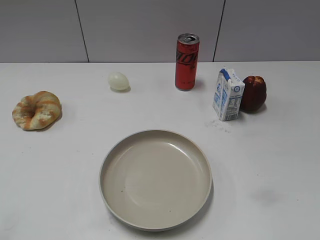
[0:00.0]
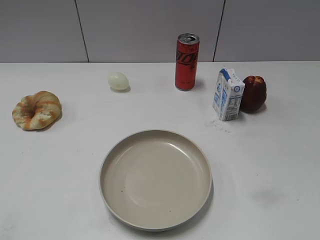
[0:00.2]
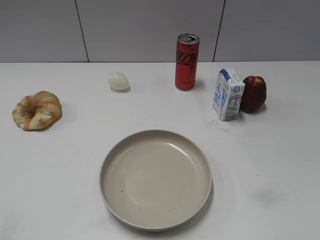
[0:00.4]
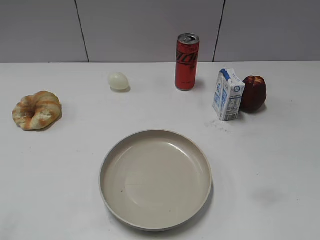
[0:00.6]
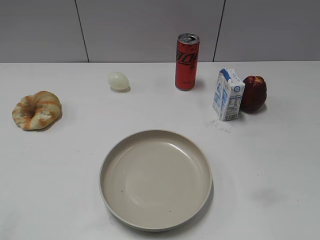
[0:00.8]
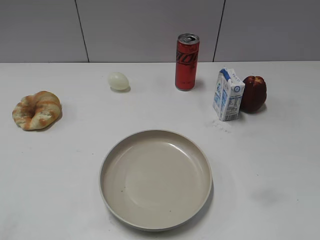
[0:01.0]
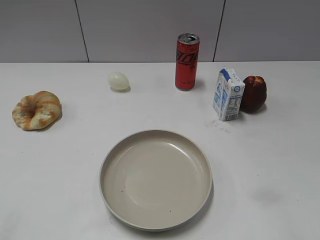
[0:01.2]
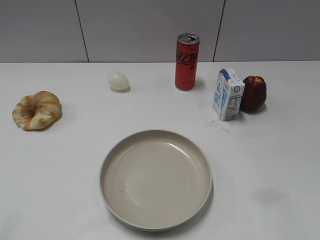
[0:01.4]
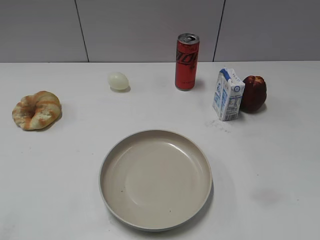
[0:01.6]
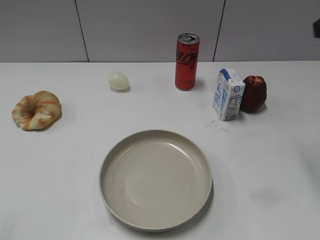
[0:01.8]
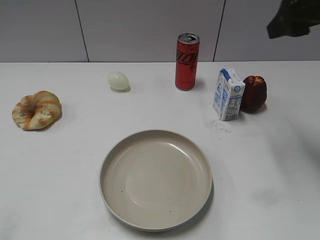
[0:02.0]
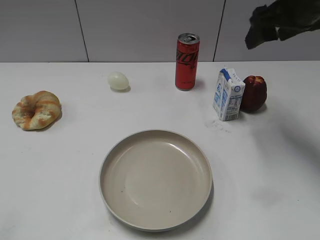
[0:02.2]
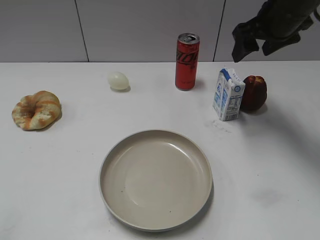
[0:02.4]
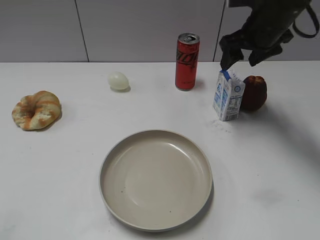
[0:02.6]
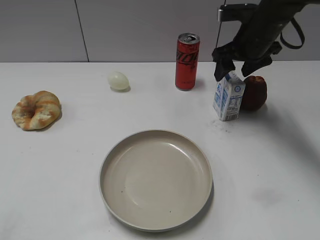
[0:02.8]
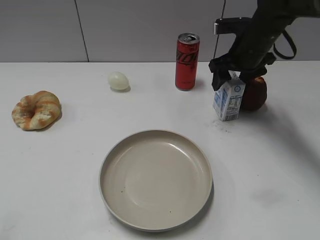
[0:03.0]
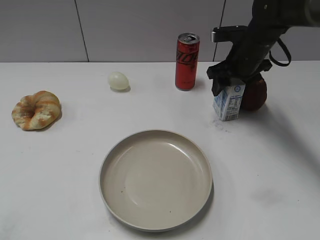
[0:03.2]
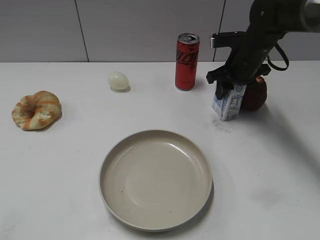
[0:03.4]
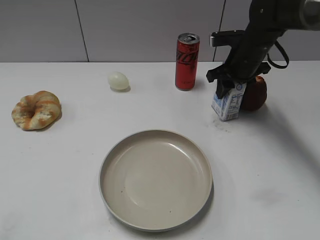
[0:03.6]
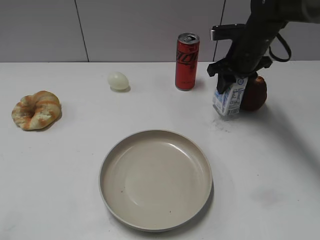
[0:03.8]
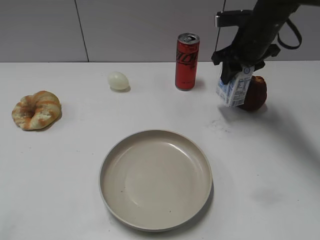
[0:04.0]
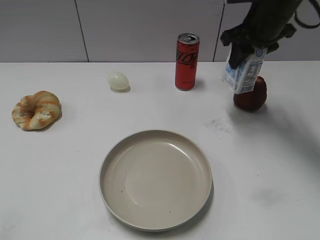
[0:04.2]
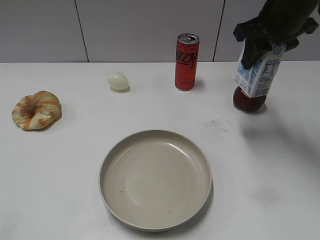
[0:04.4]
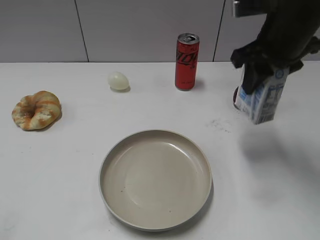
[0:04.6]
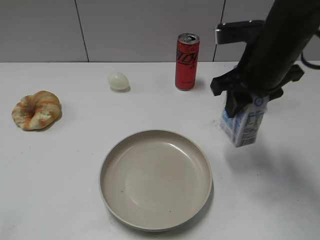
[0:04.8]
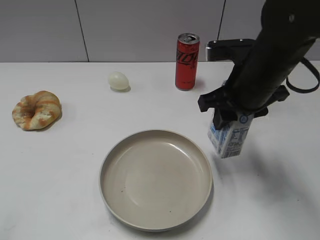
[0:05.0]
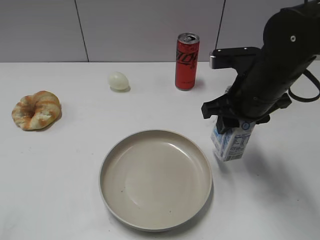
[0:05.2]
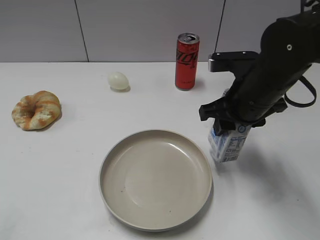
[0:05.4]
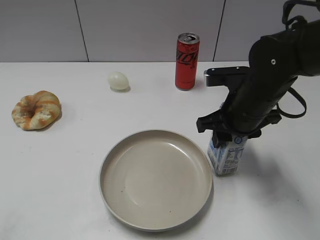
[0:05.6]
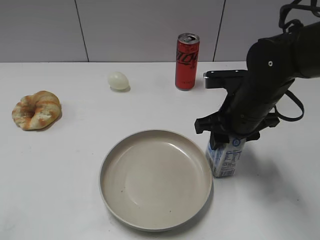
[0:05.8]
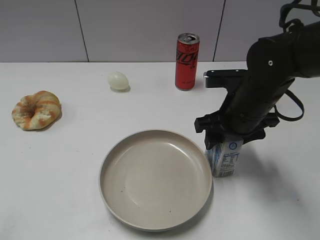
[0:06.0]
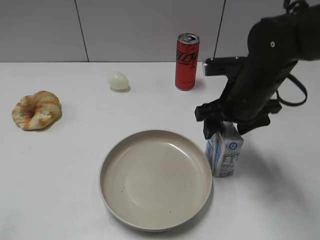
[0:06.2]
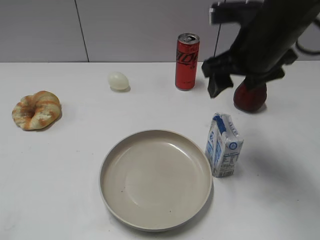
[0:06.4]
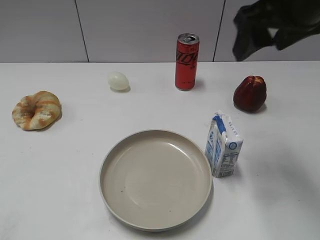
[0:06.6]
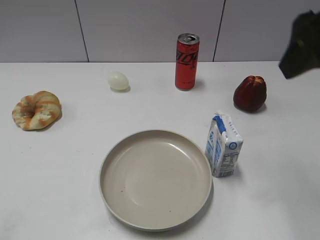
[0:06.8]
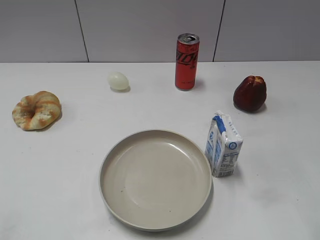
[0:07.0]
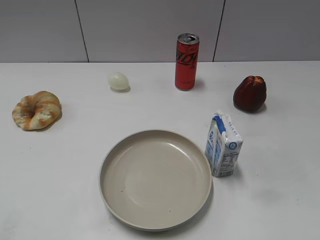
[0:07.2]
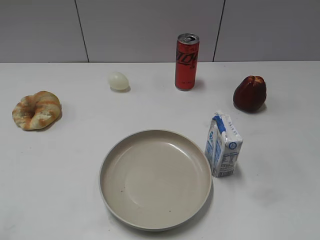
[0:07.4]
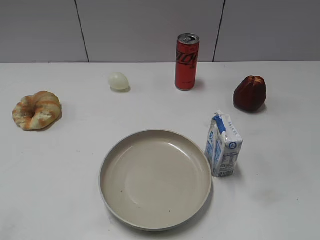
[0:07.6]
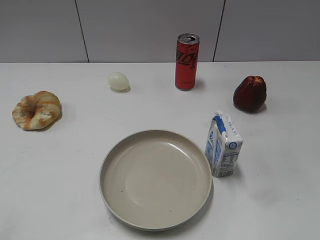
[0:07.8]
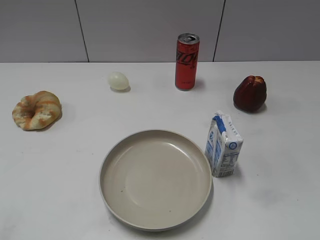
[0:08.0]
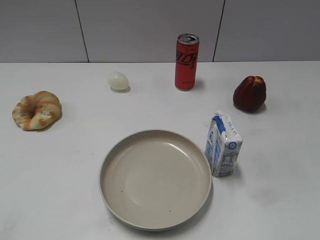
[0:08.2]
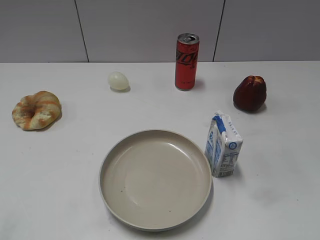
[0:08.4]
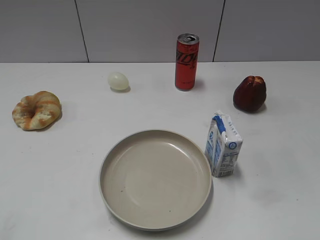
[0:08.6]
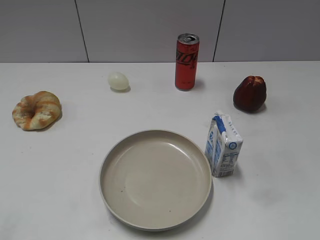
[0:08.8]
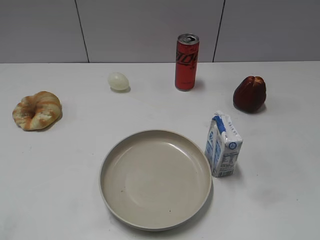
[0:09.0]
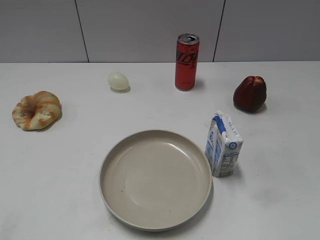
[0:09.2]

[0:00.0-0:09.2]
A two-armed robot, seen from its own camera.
Step, 0:00.8 to 0:03.4: Grasp the milk with right gripper.
Step, 0:03.6 to 0:06.2: Place the milk on the table with right gripper.
0:01.6 to 0:03.0: The right gripper is displaced forward, downward and to the left by some 30 cm.
0:03.0 to 0:04.6: The right gripper heads backward and upward, covering roughly 15 cm, and closes up.
0:04.6 to 0:06.2: The right gripper moves downward, about 10 cm, and opens up.
0:06.2 to 0:07.6: The right gripper shifts roughly 30 cm backward and to the right.

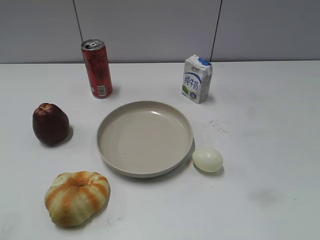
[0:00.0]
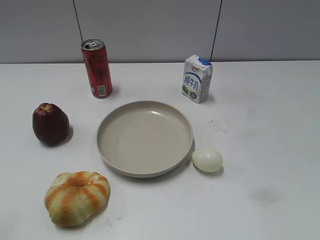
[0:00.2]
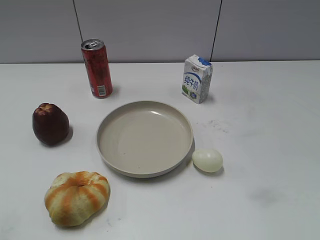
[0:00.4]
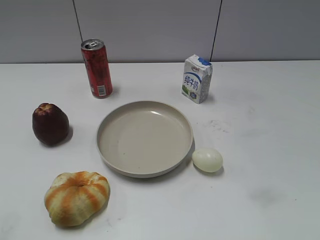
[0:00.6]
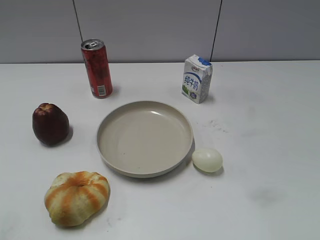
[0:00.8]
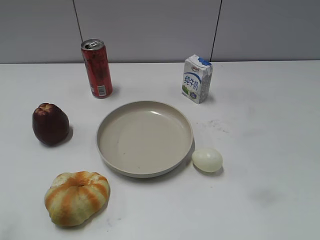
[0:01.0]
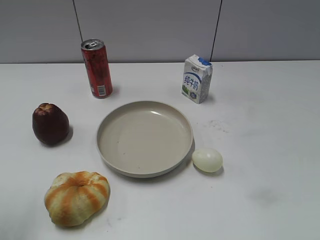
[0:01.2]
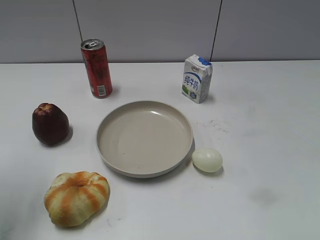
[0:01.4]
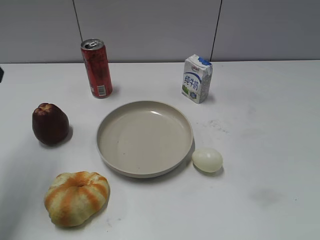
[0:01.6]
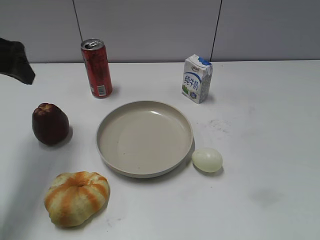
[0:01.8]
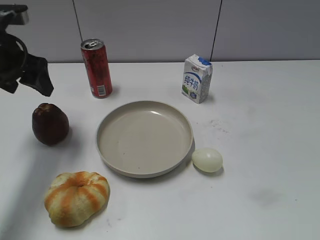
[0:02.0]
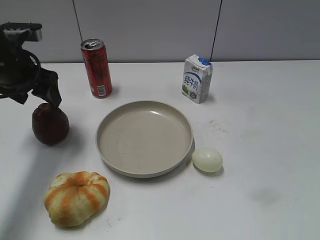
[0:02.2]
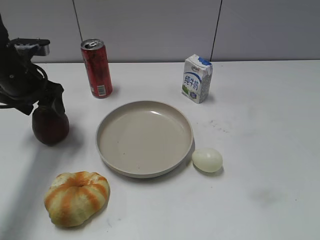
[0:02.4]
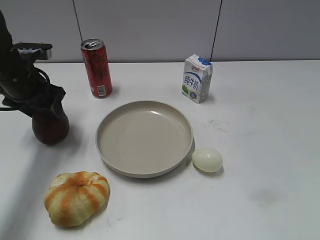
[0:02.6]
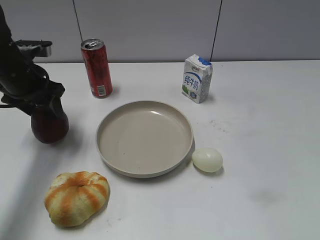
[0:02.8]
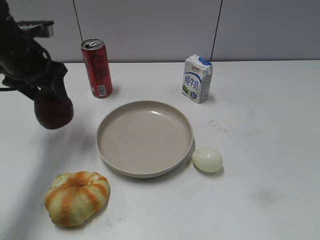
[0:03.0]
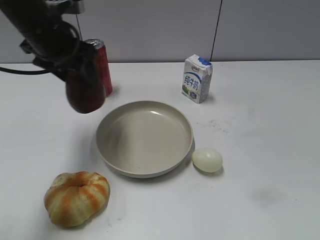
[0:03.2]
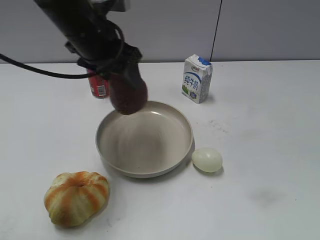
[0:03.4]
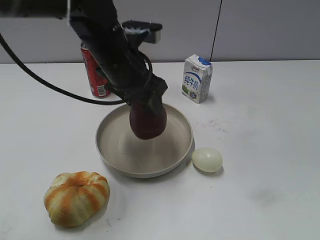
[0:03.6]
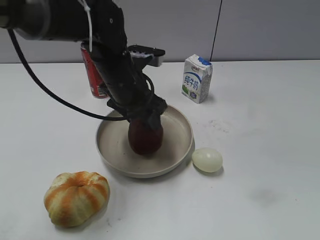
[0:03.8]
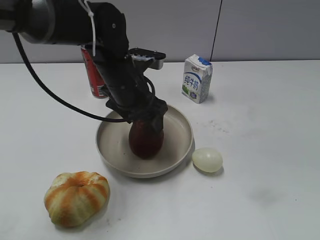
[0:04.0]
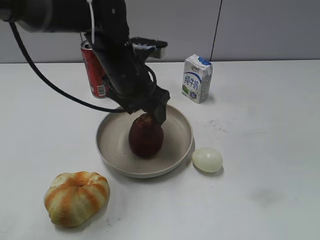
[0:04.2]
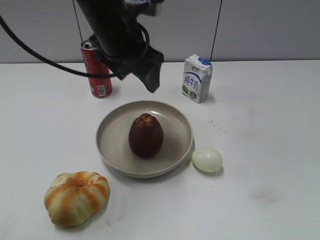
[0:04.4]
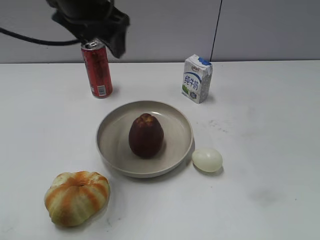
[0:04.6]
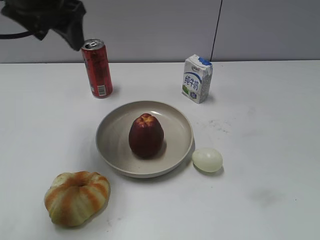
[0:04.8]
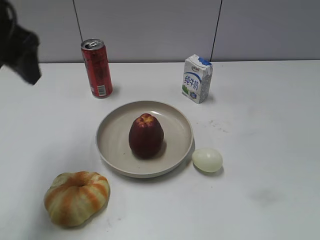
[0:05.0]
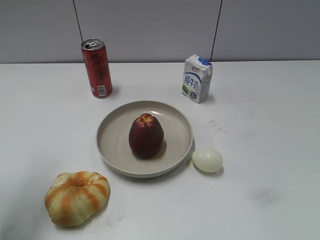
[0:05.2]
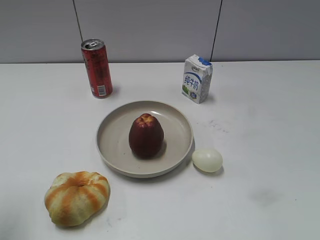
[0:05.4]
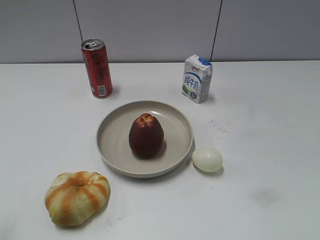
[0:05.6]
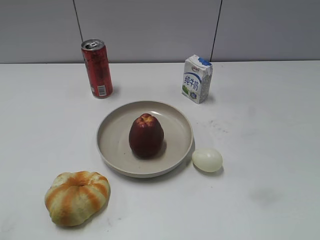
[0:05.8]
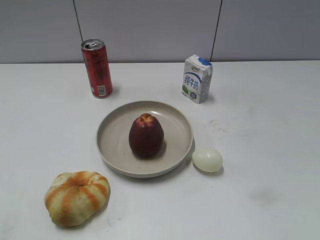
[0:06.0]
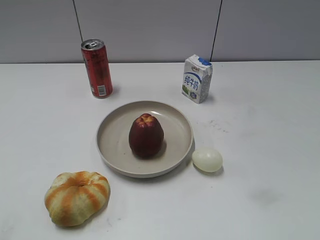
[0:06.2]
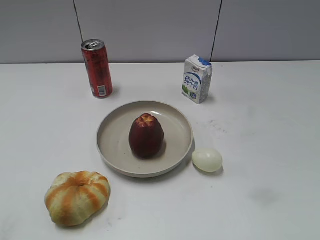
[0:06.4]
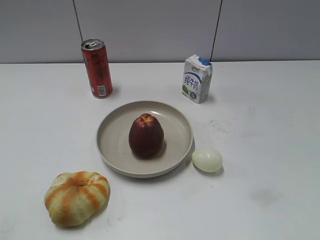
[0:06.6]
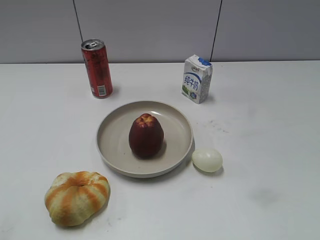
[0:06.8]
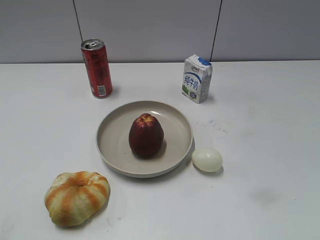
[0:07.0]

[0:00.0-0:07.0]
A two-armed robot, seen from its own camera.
Step, 0:00.8 to 0:02.6: Grasp the apple with left gripper.
Step, 0:02.8 to 0:04.2: Place the apple on the plate with left gripper.
0:01.4 to 0:02.8: The left gripper moves forward and downward, about 20 cm, and closes.
0:02.8 to 0:04.2: The left gripper is displaced to the right by some 20 cm, and opens up.
0:04.2 to 0:05.6: The left gripper is displaced to the left and backward by about 35 cm, and closes its fingers.

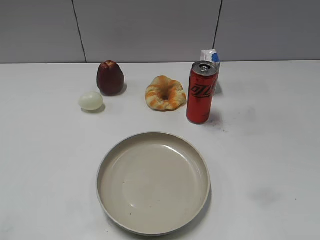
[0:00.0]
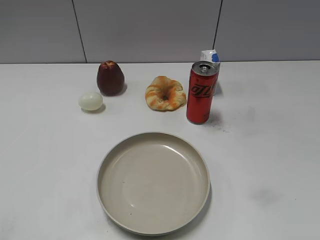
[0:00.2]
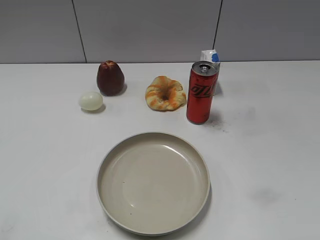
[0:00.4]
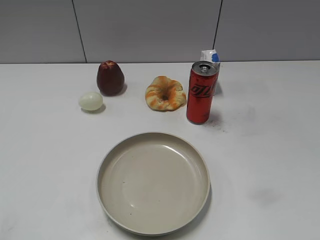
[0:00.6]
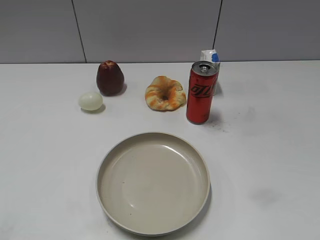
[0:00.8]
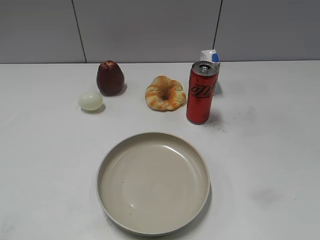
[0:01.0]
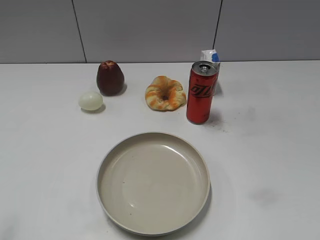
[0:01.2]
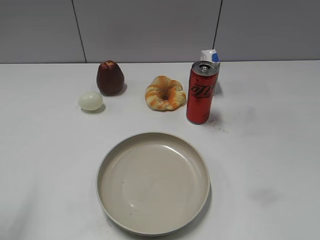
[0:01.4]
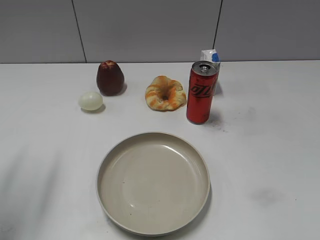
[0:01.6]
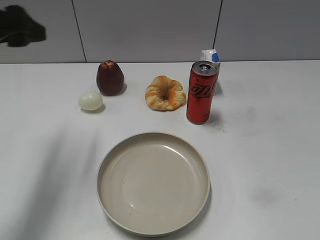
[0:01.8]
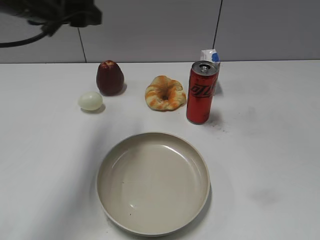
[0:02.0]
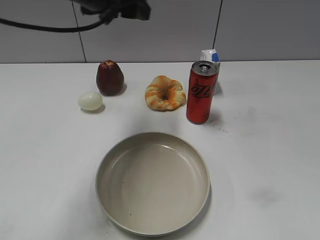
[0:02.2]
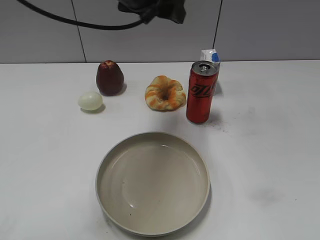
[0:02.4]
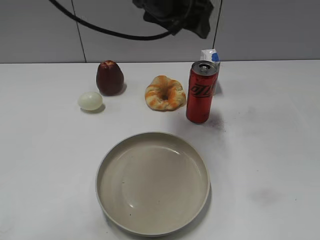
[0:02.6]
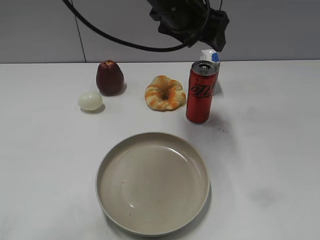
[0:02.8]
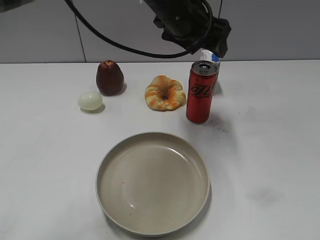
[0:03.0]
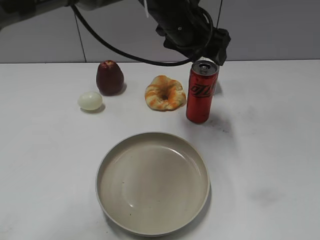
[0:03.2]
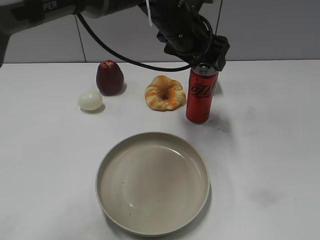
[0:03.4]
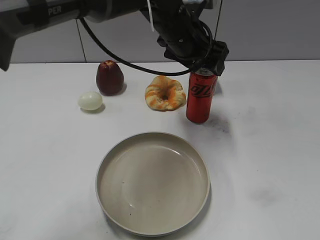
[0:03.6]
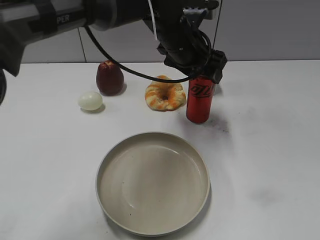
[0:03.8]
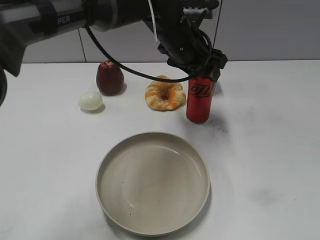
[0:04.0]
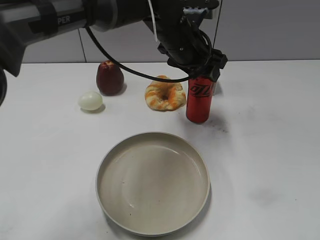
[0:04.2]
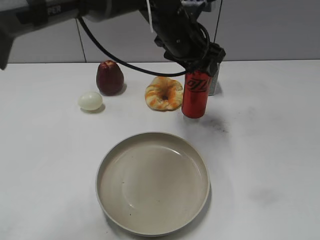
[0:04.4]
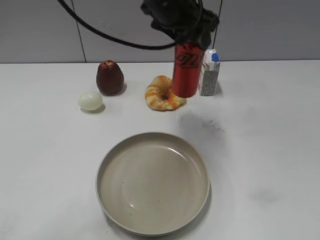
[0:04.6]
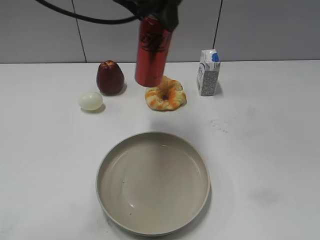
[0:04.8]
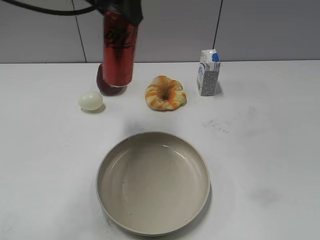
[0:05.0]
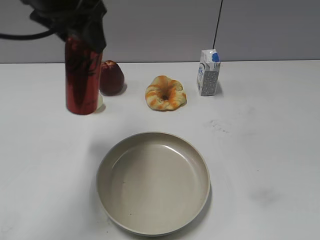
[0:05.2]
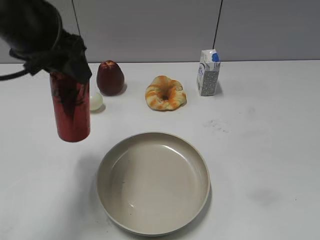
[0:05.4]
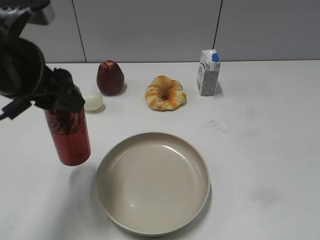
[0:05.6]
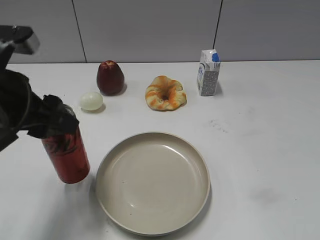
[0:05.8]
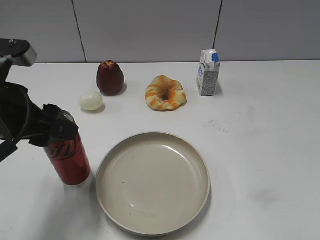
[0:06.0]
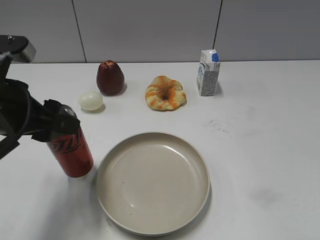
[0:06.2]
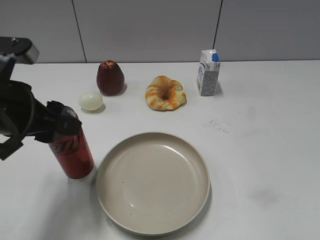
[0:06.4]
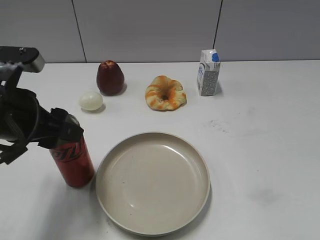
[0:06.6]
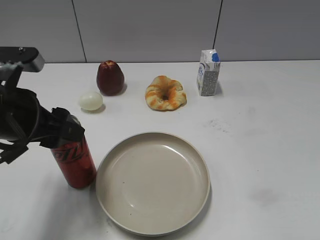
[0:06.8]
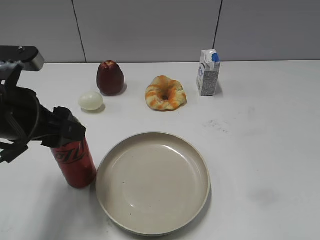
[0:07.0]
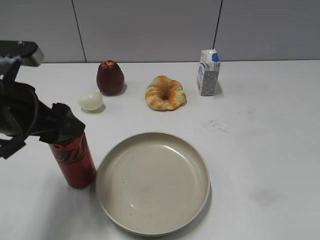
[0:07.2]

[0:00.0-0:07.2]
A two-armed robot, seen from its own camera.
Step, 0:00.8 to 0:04.2: Grasp the cola with left gripper.
0:01.4 to 0:02.8: The left gripper moves to the right and forward, roughly 40 cm, and opens.
0:02.8 to 0:04.4: The left gripper travels downward by about 5 cm, and closes up.
0:04.4 to 0:05.8: The left gripper goes approximately 30 cm to the left and backward.
0:05.8 to 0:07.2: The left gripper opens up.
